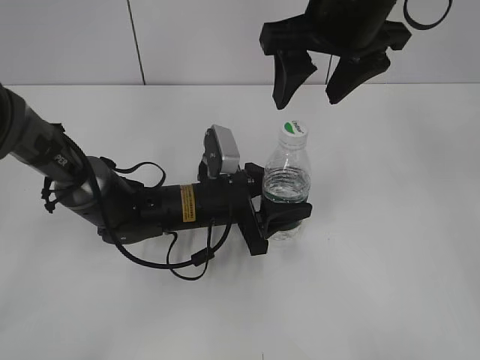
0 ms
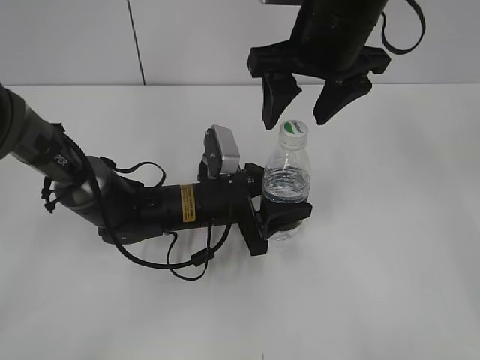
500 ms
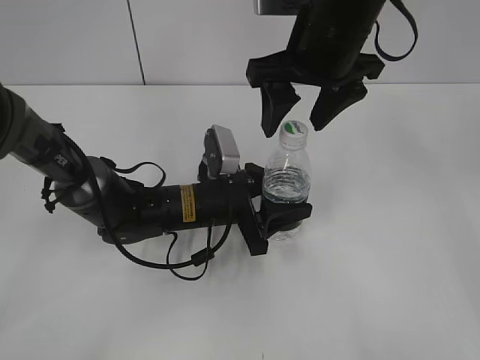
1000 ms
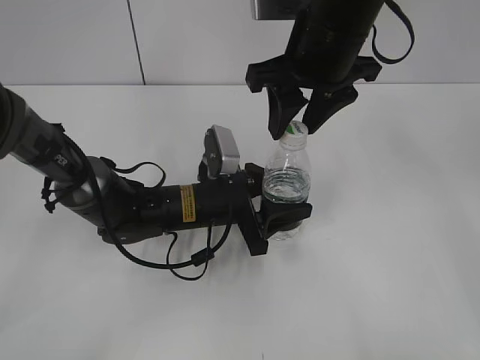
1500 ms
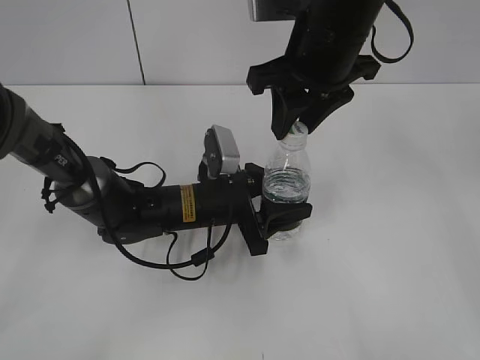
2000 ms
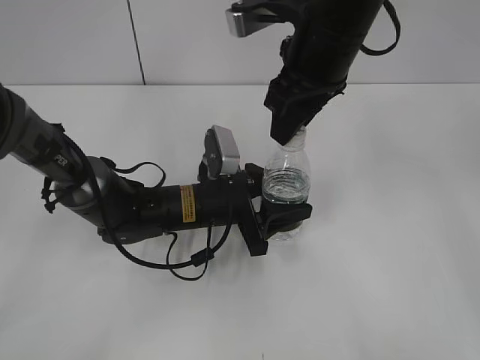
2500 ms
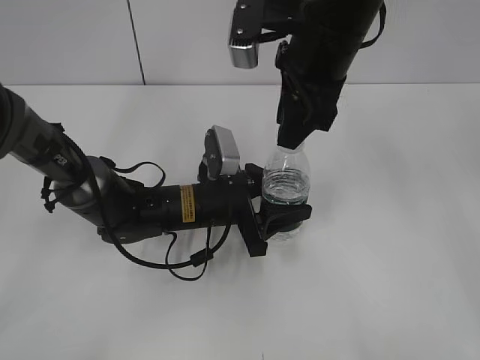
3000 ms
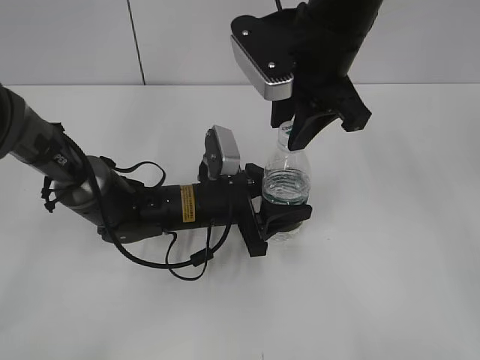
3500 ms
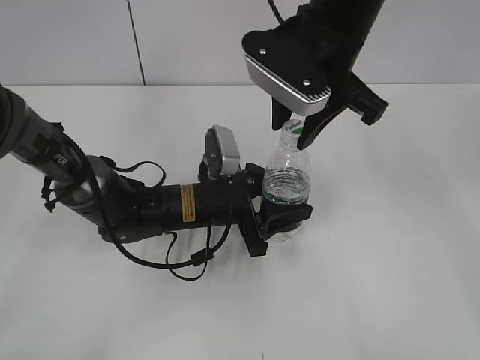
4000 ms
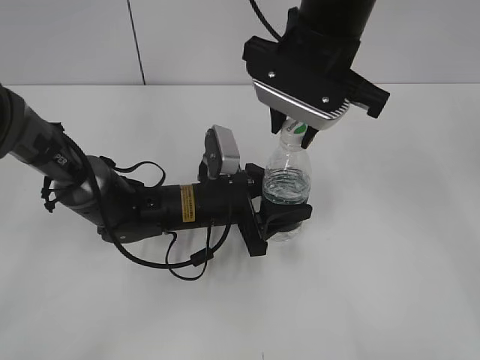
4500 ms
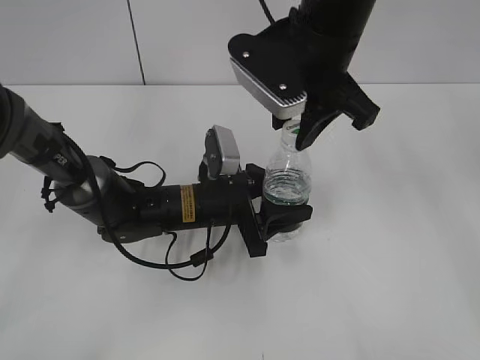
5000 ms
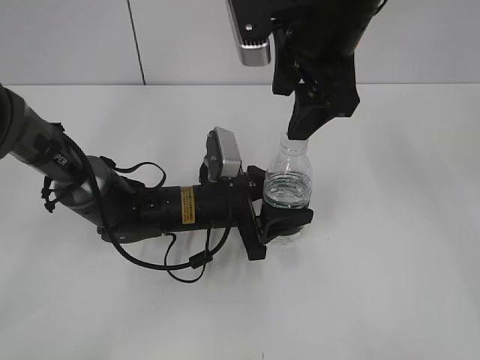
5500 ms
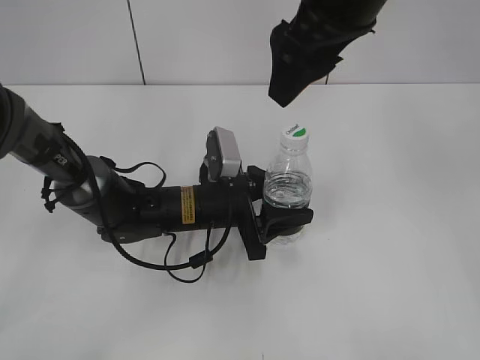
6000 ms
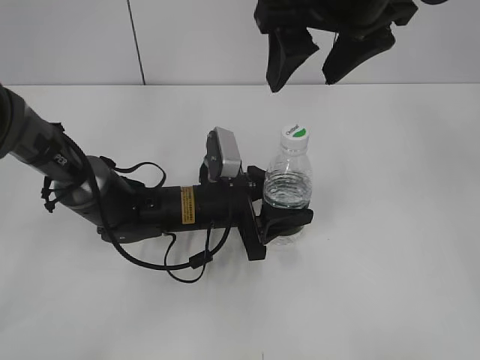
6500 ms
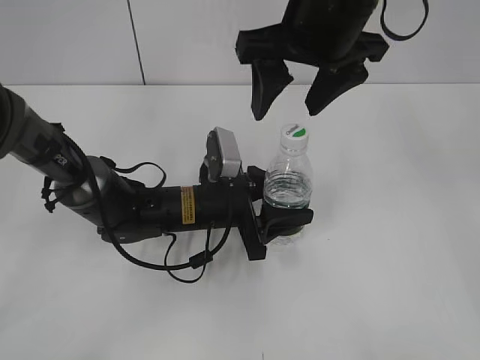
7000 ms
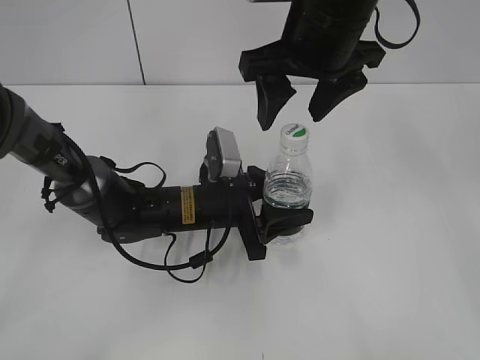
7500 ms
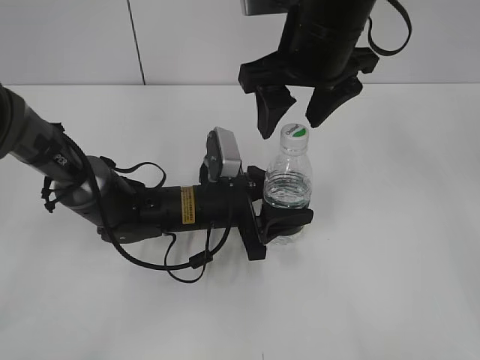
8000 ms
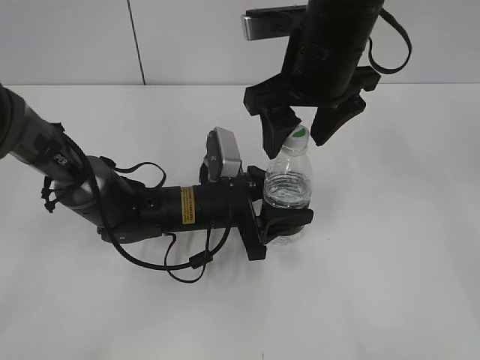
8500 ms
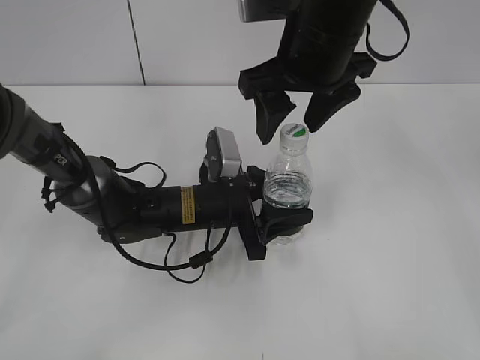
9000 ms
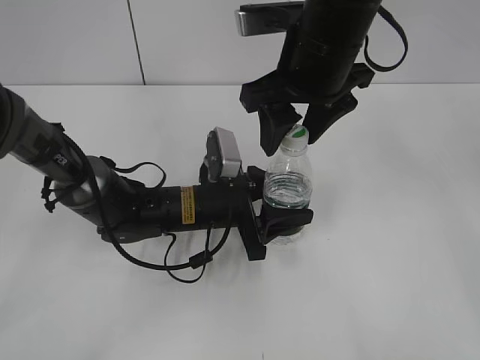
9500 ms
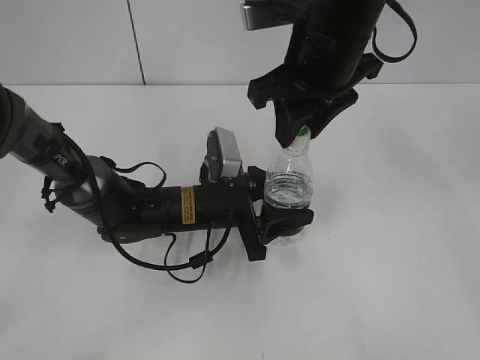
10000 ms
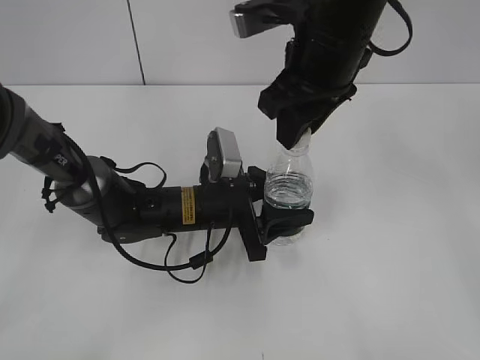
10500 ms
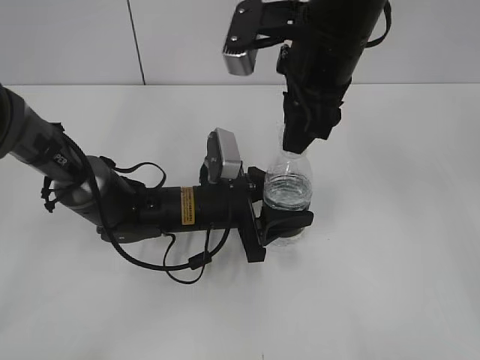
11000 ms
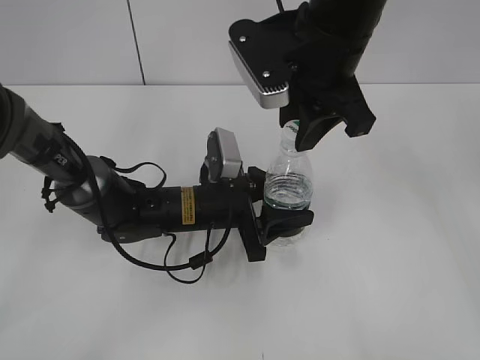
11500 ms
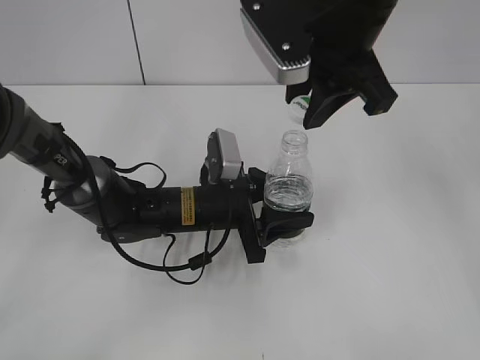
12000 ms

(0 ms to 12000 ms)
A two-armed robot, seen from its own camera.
Step, 0 ms - 12000 ms: Unscrew the bottle cap with the right gripper while holding the bottle with the left gripper.
0 ms - 2000 ms: The right gripper closes.
4000 ms - 6000 ms: The right gripper moves upward, roughly 5 cm, and opens up.
6000 ms - 8000 ms: The right gripper shifts roughly 5 cm downward.
8000 ms - 10000 ms: The right gripper closes up.

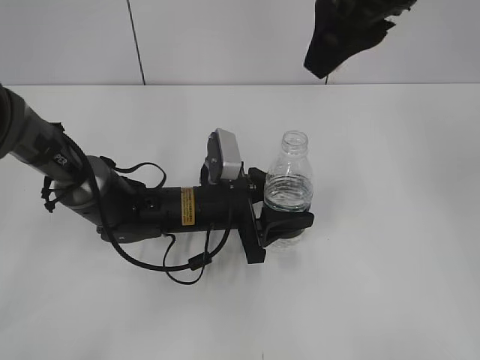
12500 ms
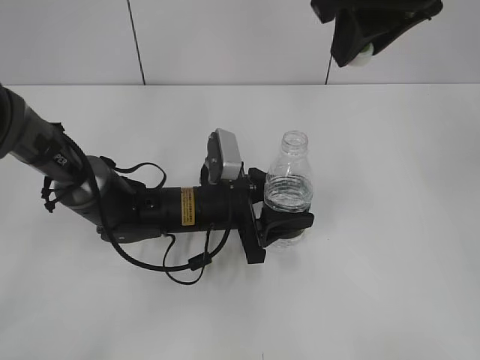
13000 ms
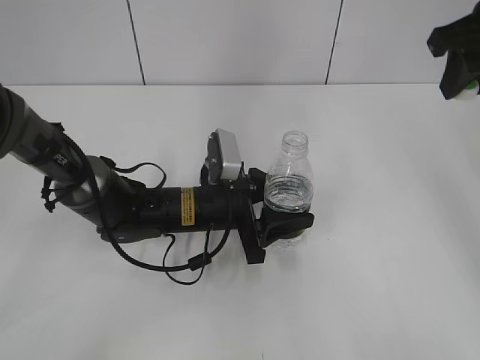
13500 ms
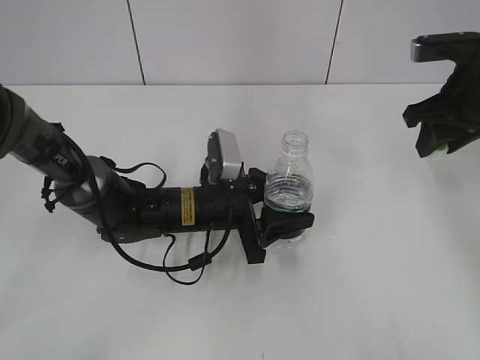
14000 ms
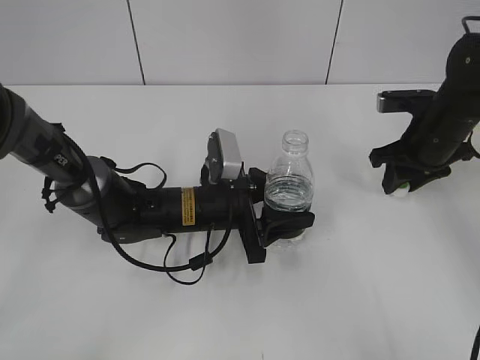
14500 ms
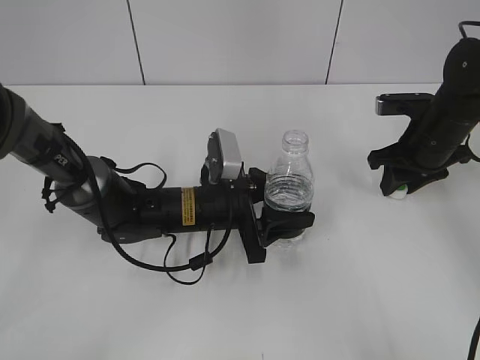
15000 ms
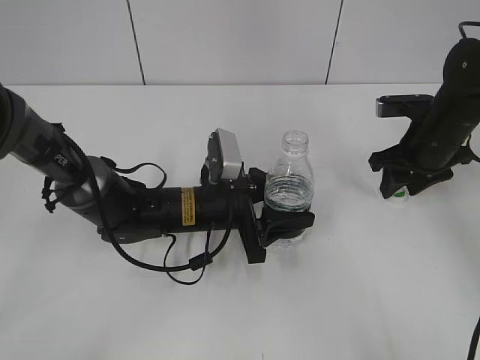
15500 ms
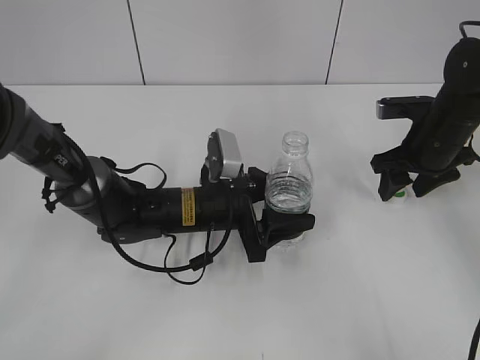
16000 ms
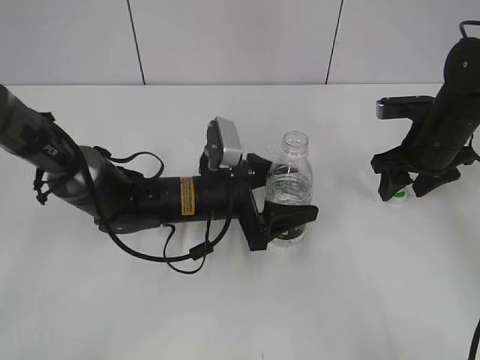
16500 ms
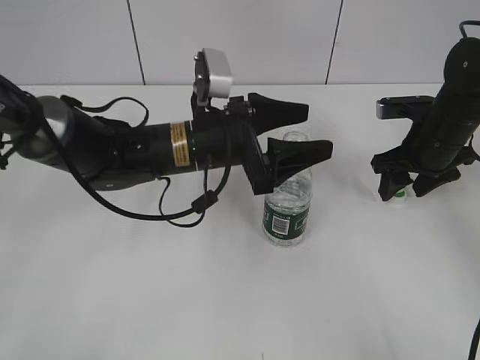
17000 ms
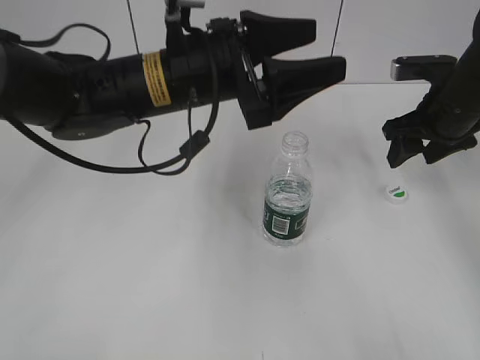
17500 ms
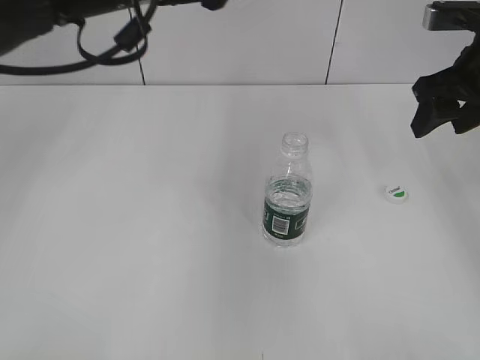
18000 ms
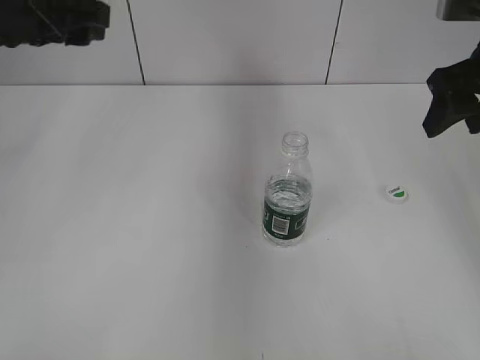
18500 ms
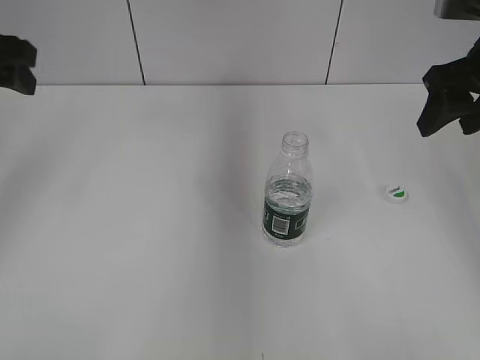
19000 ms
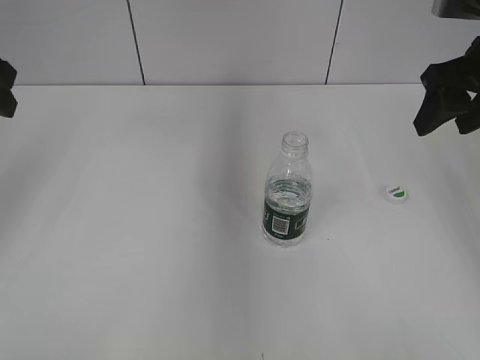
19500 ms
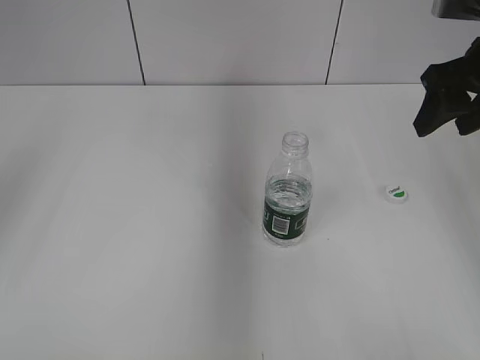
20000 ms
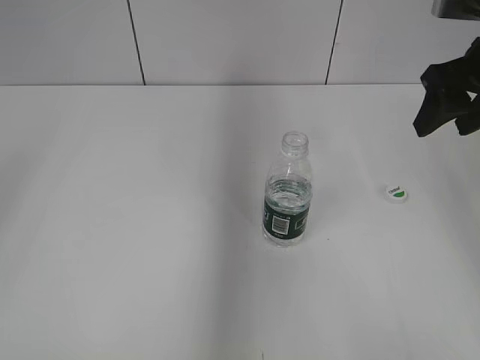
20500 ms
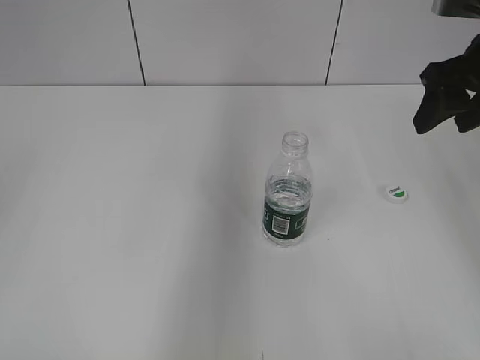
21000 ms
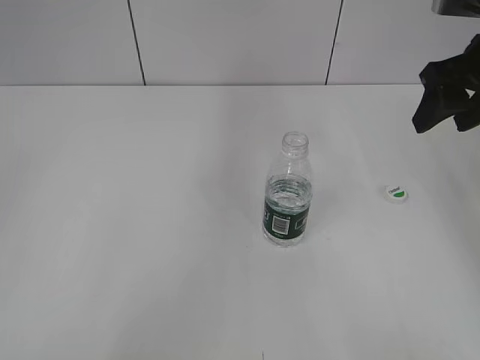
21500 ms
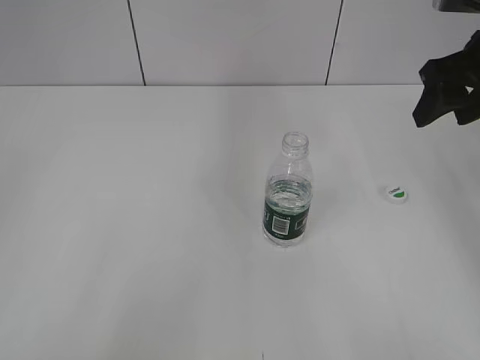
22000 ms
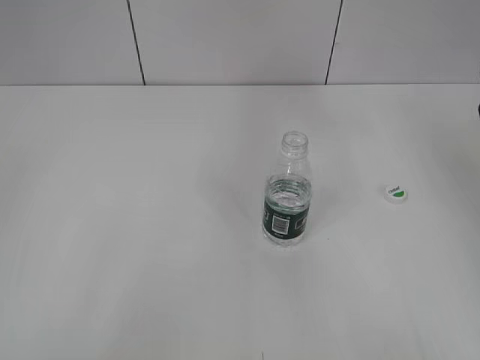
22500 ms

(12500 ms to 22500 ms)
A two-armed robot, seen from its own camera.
Step, 12500 ms - 16000 ms: Place the bottle cap on the table with the right gripper.
12500 ms - 14500 ms: The right gripper moves downward, to the right and forward, about 30 cm.
14500 ms - 16500 ms: The left gripper opens. Meanwhile the right gripper opens its fingers.
16500 ms - 18500 ms: The left gripper is displaced upward and to the left by approximately 30 cm; the right gripper goes approximately 15 cm upward.
18500 ms - 20500 ms: The left gripper heads backward, to the left and upward, covering approximately 25 cm.
20500 ms - 22500 ms: The left gripper shifts about 20 cm backward and downward, while the right gripper goes some 5 cm to the right.

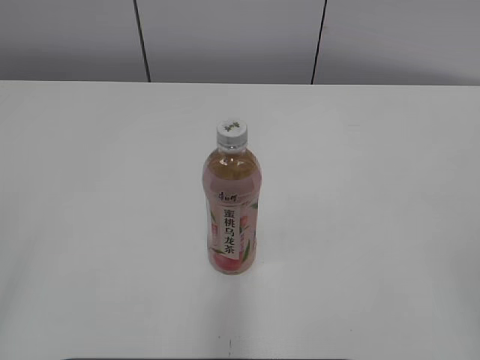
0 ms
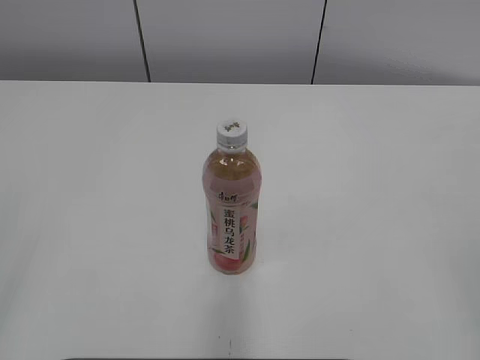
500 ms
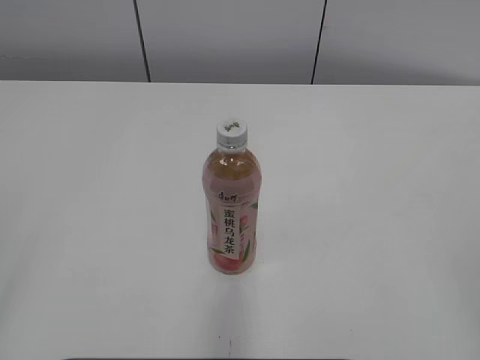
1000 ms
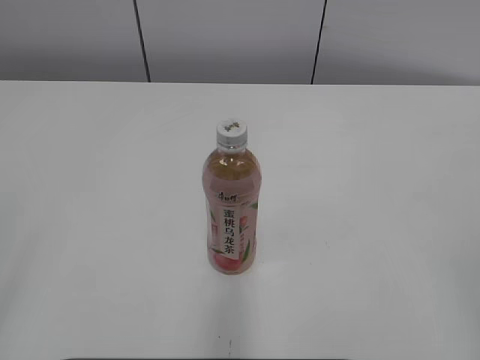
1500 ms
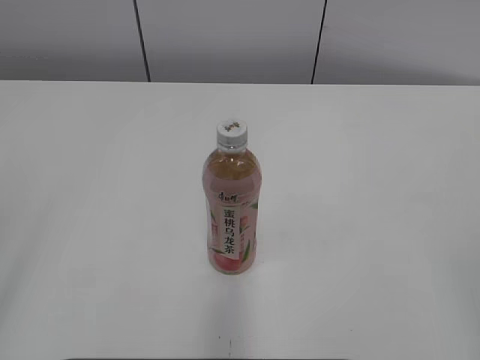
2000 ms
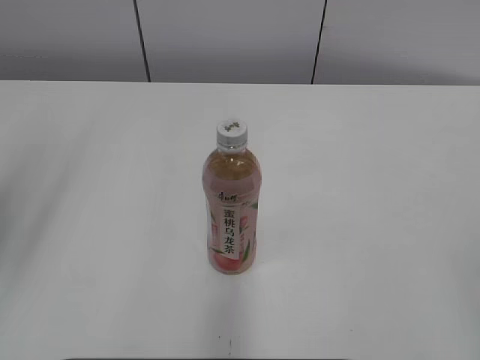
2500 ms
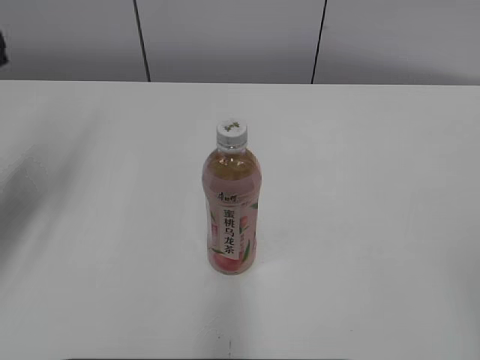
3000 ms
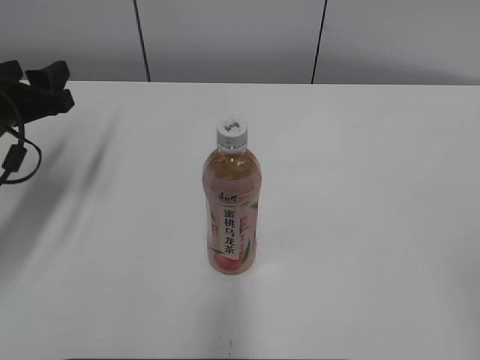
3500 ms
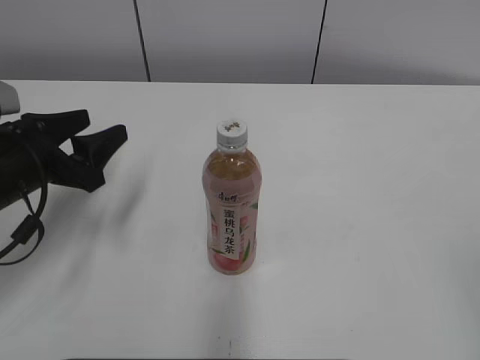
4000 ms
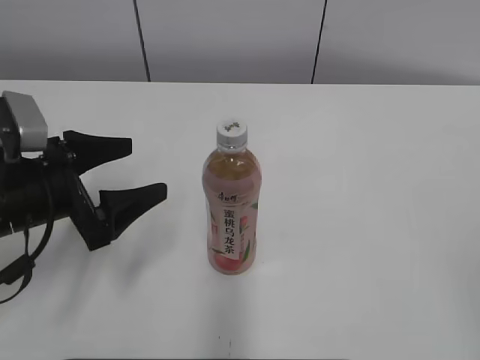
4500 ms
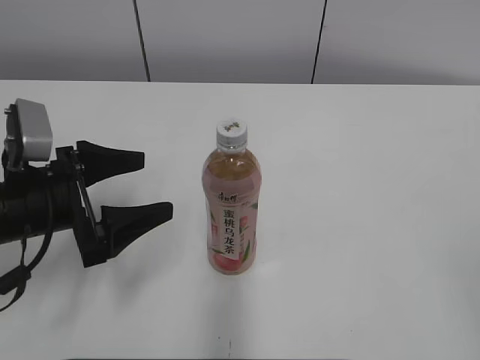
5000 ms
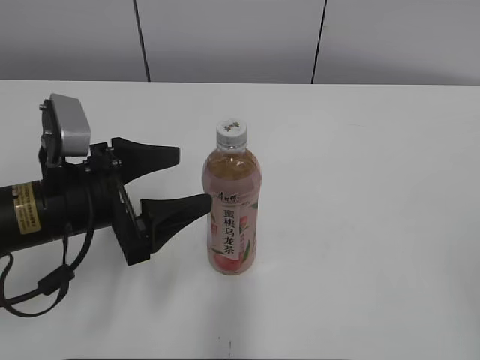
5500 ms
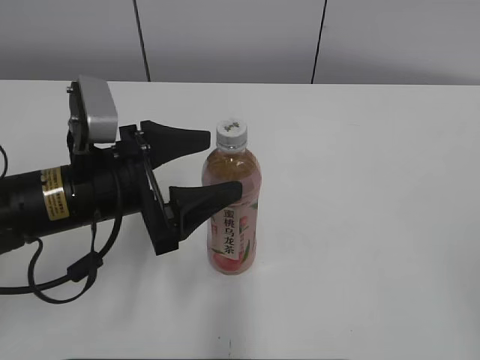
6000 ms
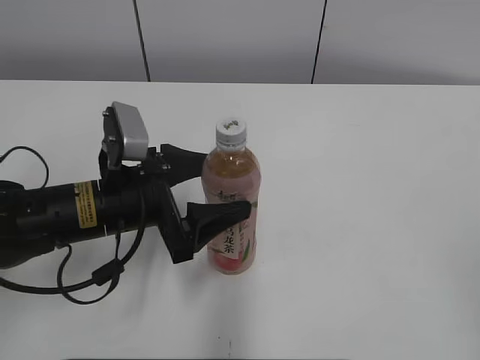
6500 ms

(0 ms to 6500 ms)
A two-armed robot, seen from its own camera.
2000 ms - 4500 ms: The left gripper travels forward and downward by some 30 cm, and opens.
4500 ms - 6500 ms: The left gripper travels to the right by some 10 cm.
